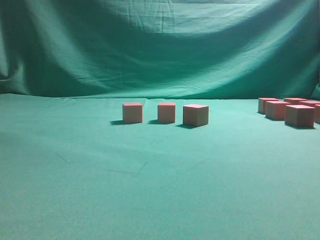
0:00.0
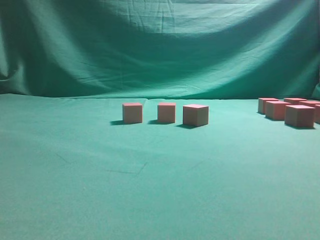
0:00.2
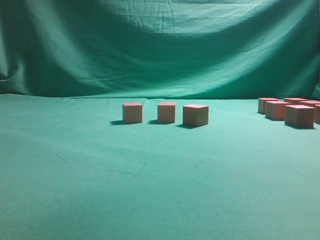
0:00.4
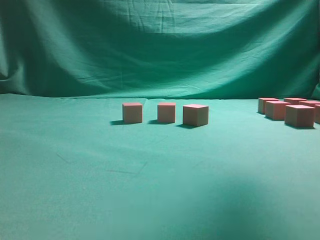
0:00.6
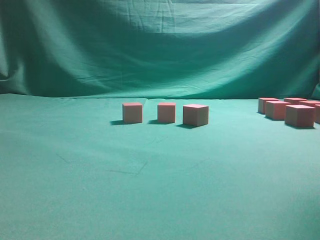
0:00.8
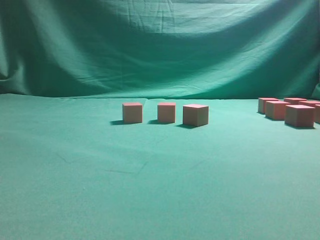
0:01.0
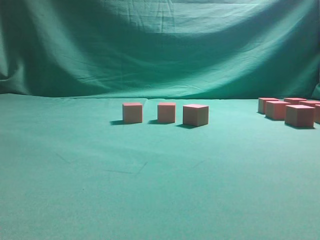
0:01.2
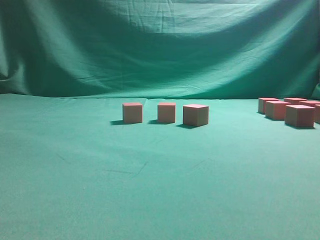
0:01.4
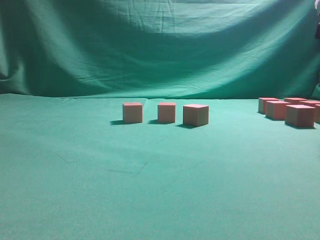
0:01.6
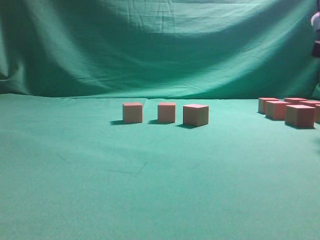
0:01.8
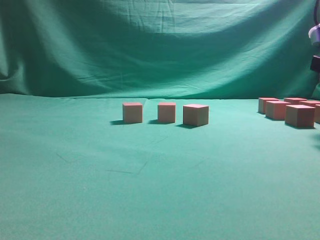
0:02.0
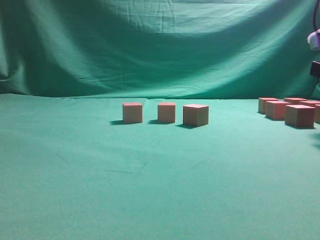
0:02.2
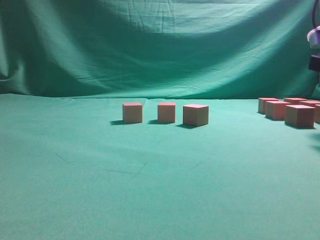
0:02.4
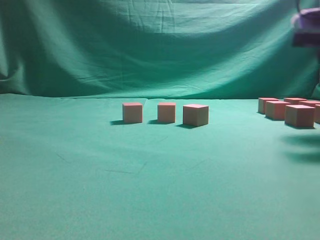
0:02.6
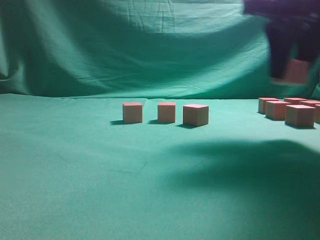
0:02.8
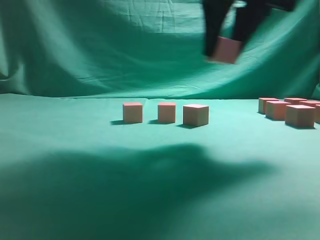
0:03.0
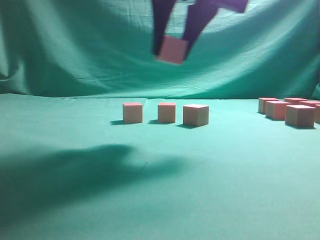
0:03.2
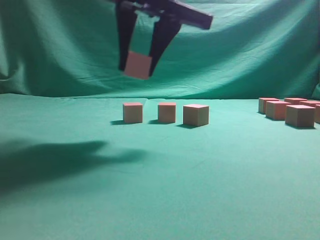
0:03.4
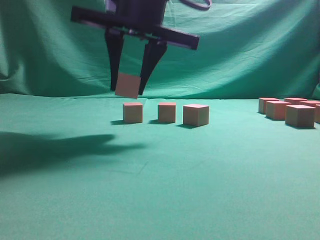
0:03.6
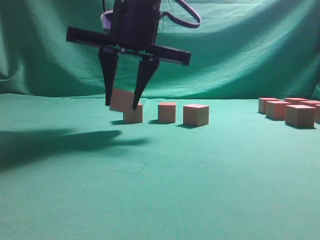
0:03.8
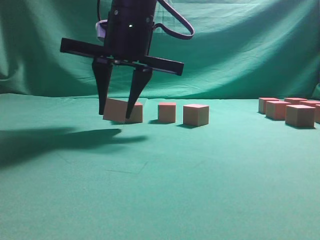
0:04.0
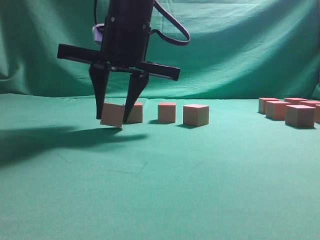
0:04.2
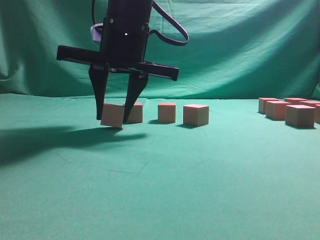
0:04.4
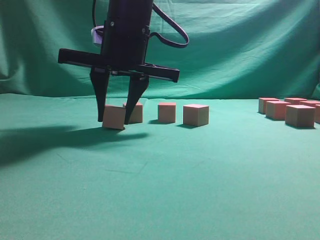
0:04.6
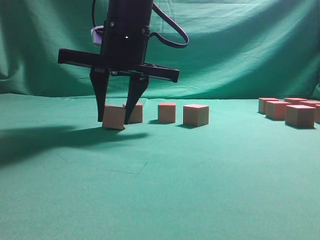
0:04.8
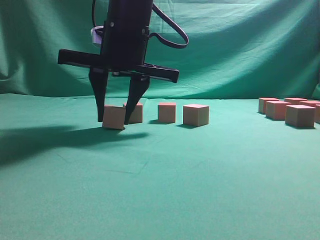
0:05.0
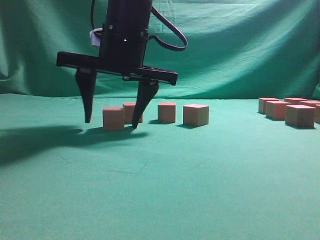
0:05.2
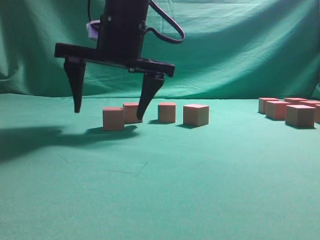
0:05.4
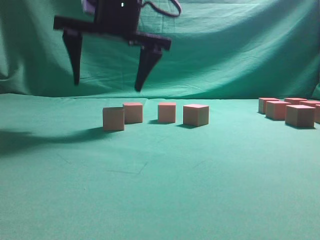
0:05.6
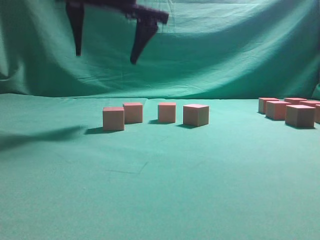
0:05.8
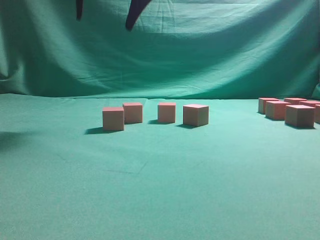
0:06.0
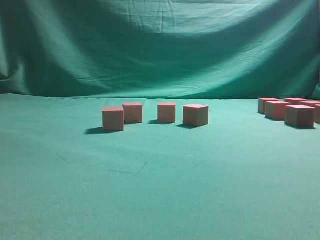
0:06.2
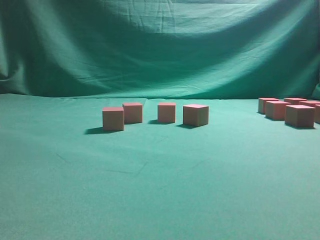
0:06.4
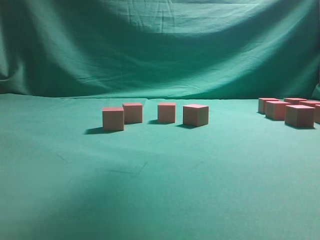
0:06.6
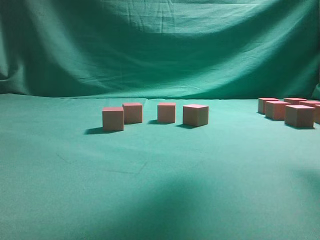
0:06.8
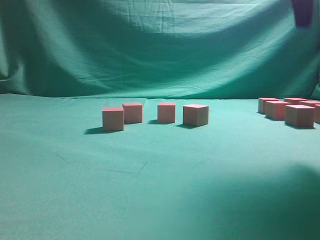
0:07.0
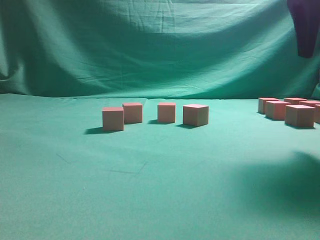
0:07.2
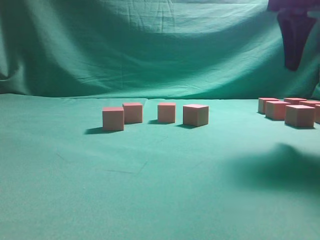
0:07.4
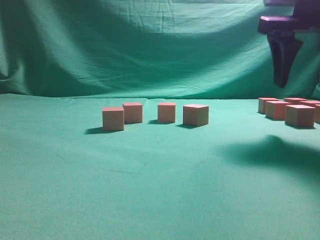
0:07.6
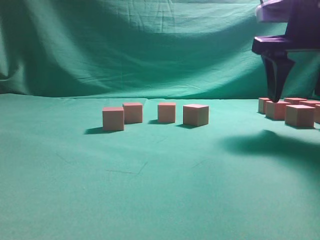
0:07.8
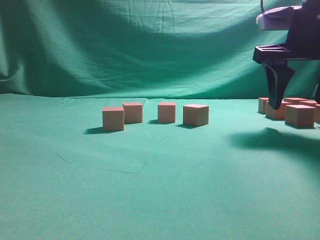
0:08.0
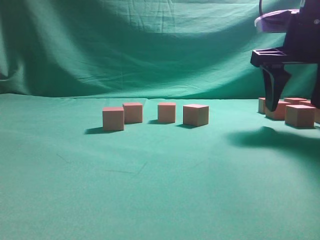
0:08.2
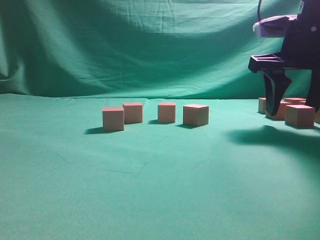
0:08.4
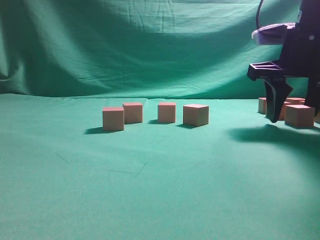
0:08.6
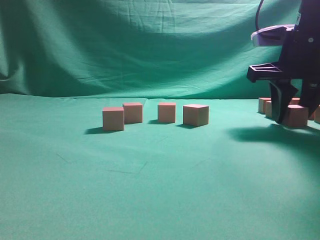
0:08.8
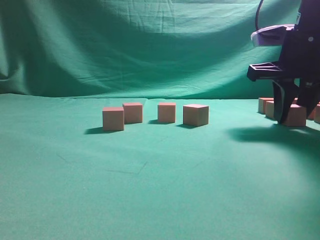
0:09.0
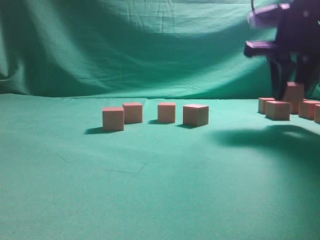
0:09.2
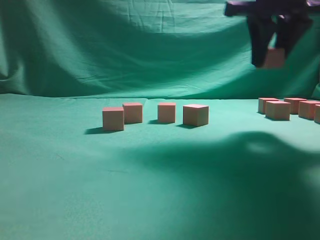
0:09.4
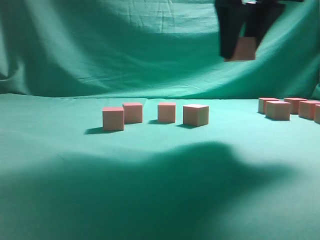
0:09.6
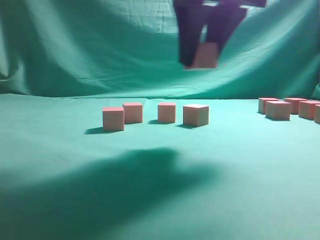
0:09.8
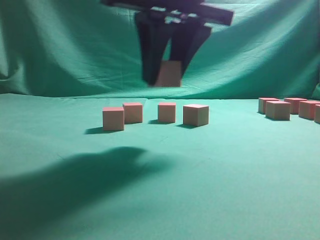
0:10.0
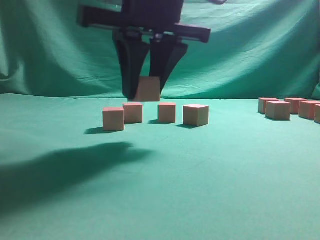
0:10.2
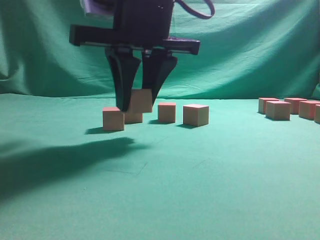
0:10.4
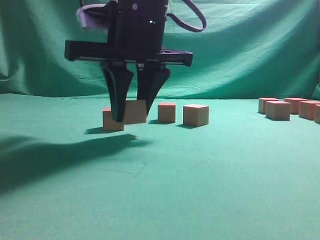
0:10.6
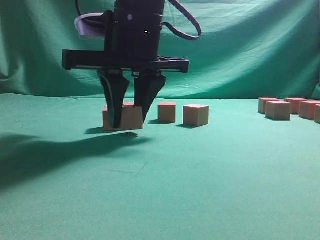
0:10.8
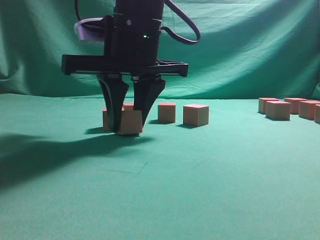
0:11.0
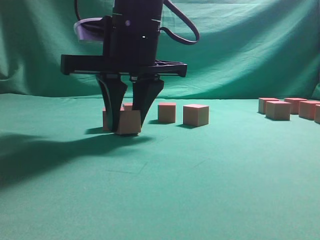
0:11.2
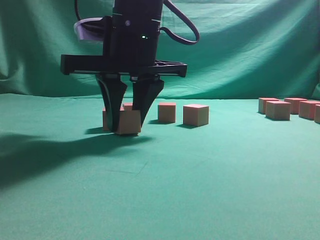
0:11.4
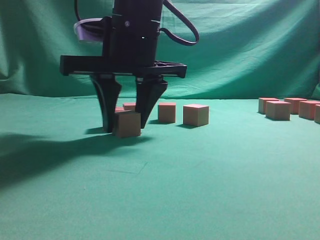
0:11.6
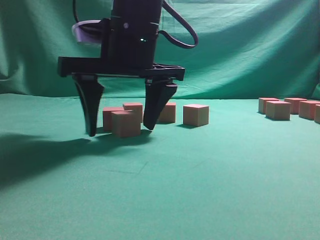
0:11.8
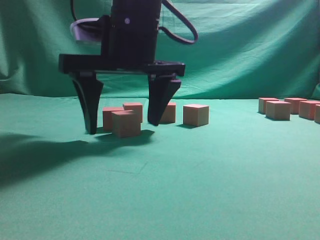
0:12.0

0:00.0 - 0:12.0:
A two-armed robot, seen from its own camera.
Task of the whole recording: pick up the multiple cubes in two columns one by one and place them in another position on the table.
Step, 0:00.0 - 0:02.6: Pick up the block on the table.
Step, 0:02.8 - 0:05.8: Place the block at the correct position to assemble the letter S.
Step, 0:06.0 - 0:09.0: Pick up the block on the table.
0:01.6 - 0:03.0: The right gripper moves to the left, approximately 15 cm.
0:03.0 - 0:04.4: The right gripper travels to the left and downward by approximately 20 cm.
0:04.4 - 0:06.0: The right gripper travels upward by about 15 cm, and opens.
0:06.0 - 0:07.6: The right gripper goes roughly 25 cm to the right.
0:07.6 - 0:09.0: The right gripper travels downward by some 5 cm, and closes.
0:09.0 - 0:10.4: The right gripper heads to the left, covering about 20 cm.
0:10.4 - 0:12.0: The right gripper opens its fingers.

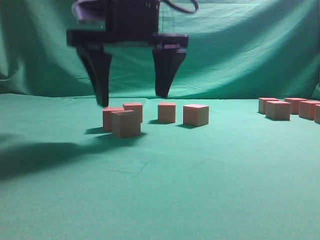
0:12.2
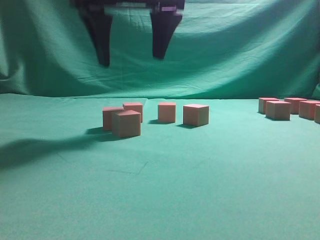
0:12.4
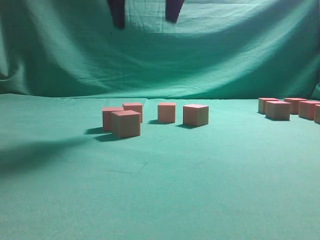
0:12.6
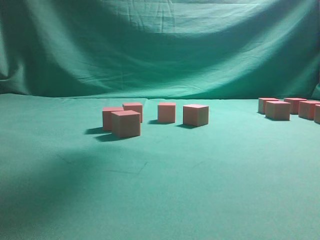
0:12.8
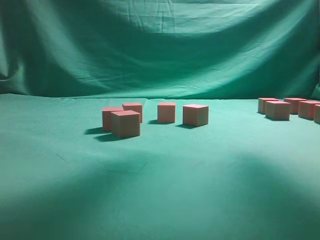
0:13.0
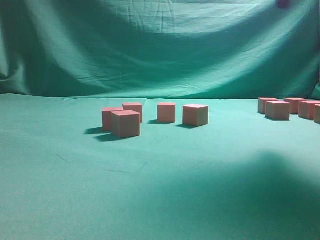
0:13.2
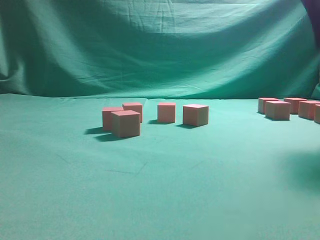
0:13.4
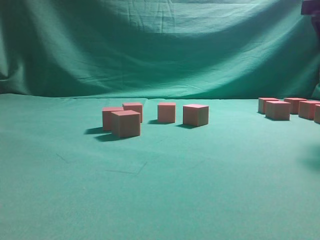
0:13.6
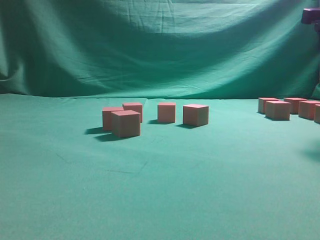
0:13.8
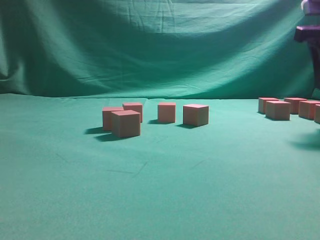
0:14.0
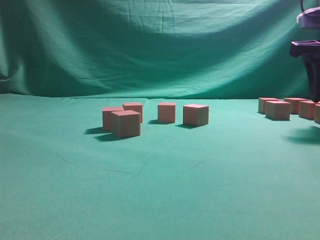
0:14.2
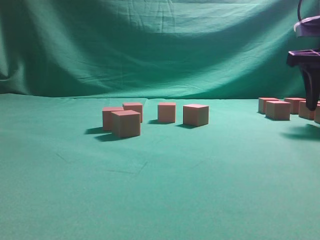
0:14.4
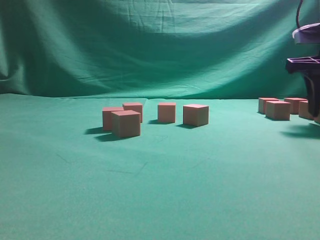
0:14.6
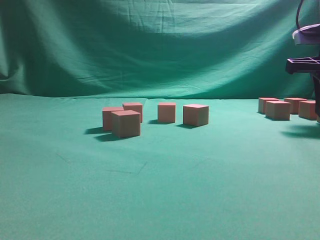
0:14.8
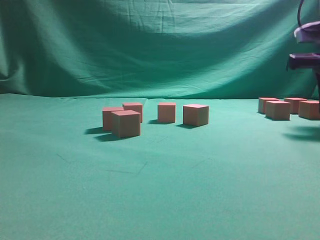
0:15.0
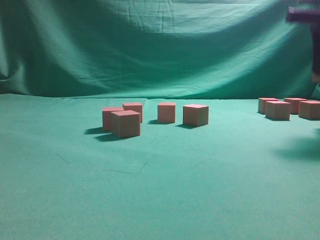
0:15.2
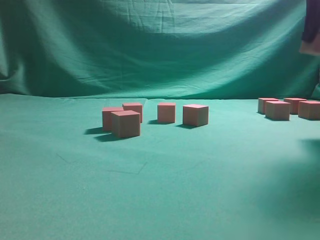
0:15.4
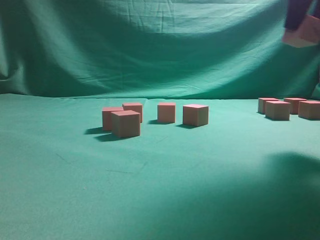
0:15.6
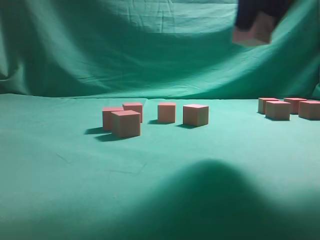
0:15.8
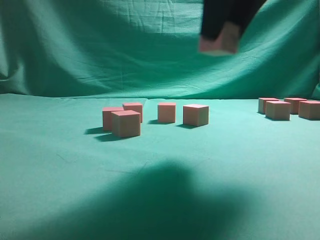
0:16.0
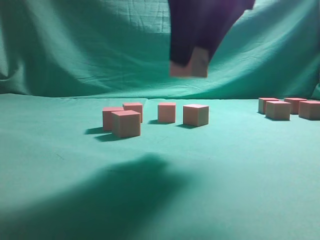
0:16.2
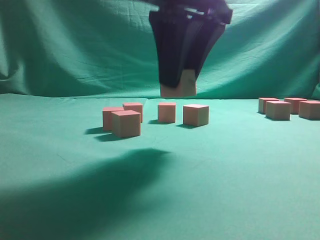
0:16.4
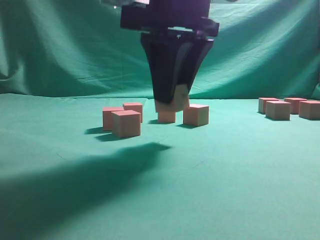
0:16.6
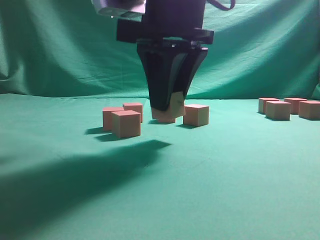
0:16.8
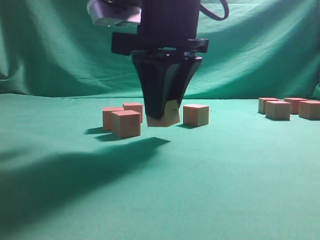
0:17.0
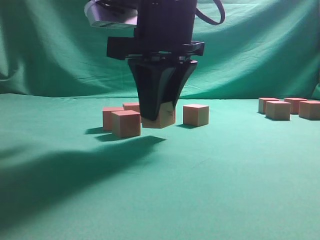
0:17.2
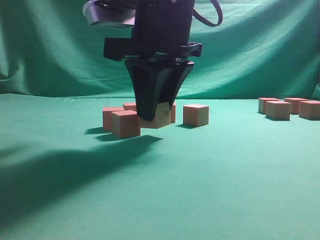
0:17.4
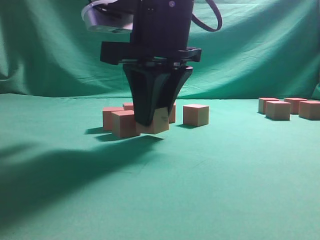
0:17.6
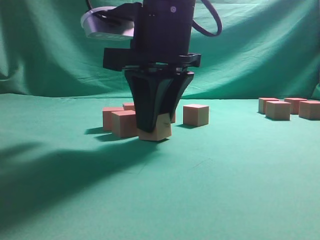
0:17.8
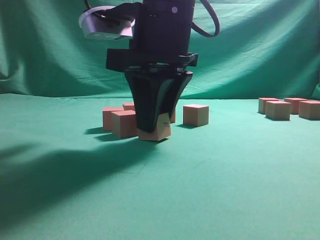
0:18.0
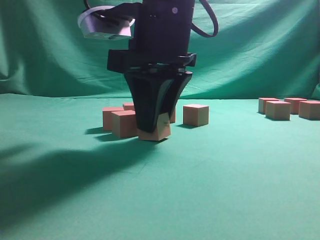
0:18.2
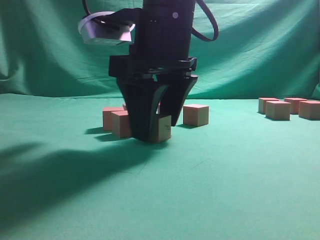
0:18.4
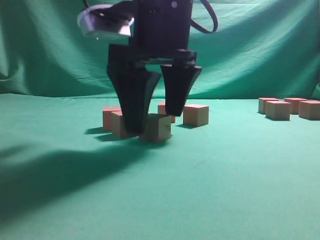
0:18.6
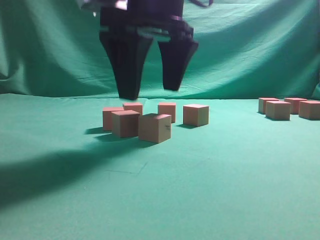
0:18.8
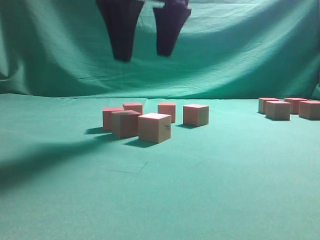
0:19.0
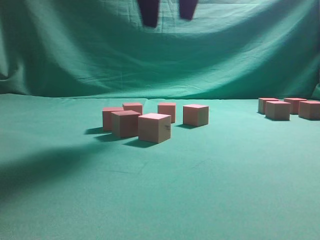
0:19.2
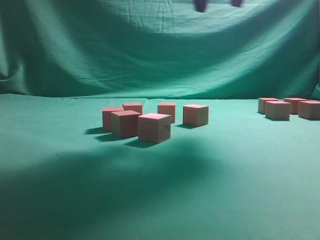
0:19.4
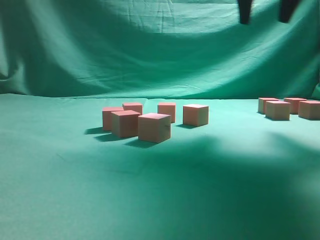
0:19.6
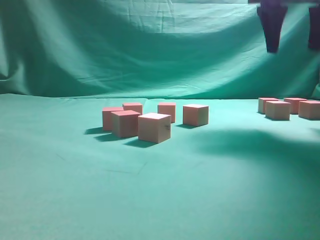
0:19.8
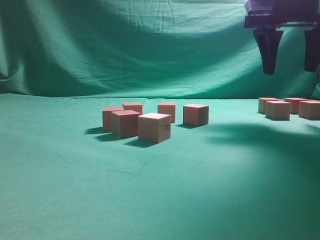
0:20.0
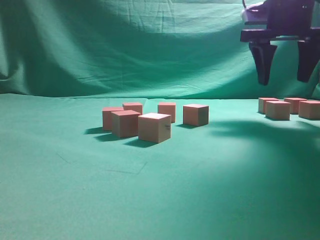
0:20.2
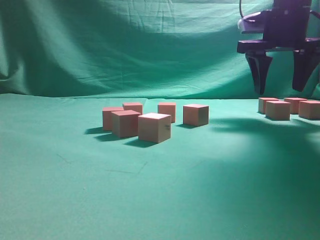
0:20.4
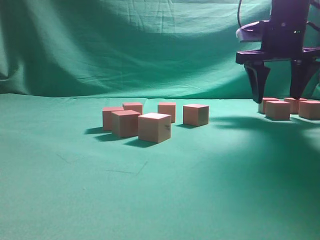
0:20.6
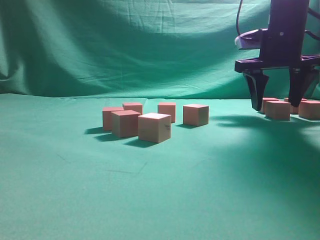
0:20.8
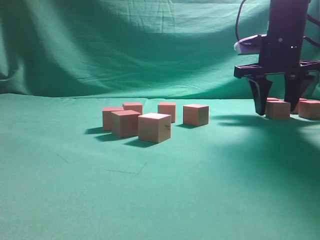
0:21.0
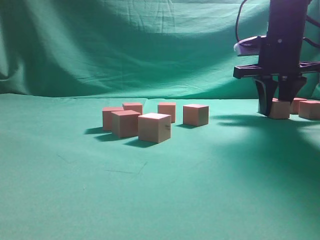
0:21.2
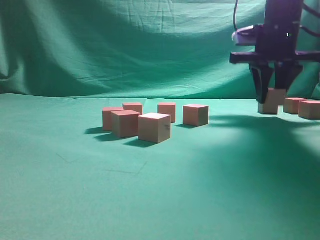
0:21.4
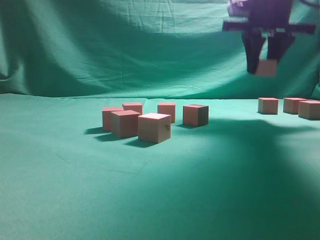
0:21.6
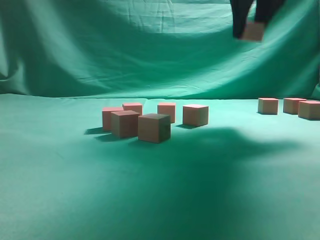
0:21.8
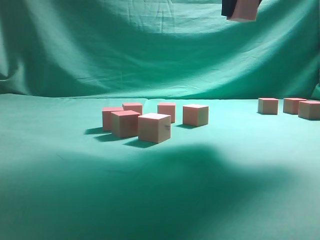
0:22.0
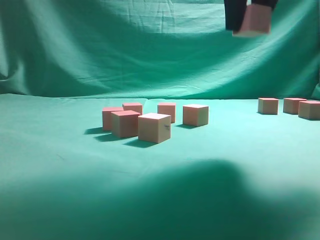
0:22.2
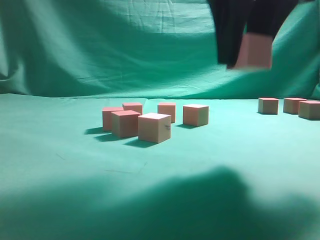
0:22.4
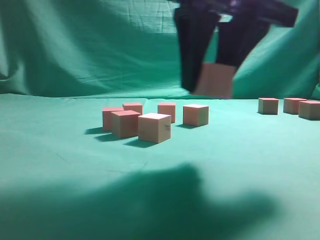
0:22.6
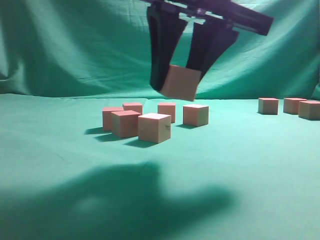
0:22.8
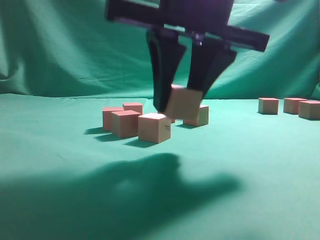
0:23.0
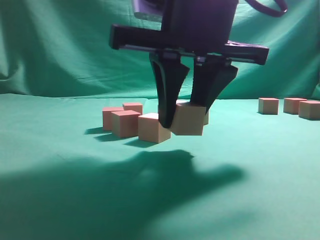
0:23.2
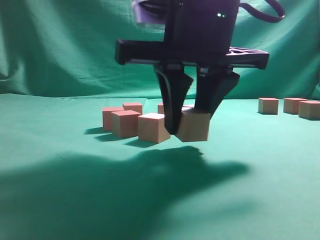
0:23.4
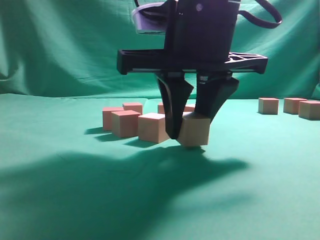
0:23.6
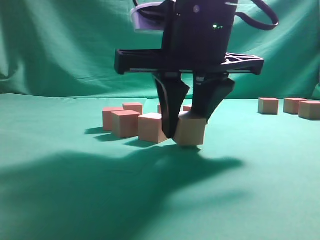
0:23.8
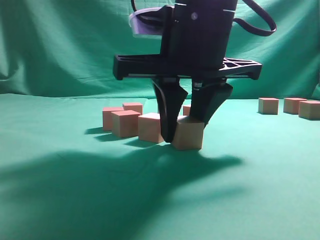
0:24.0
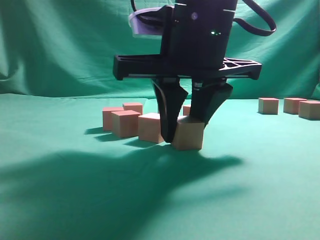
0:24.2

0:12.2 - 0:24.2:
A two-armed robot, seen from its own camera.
Task of the whole recording: pick up the multiple cubes in two columns one by one and place them in another position on the table.
Step, 0:12.6 - 0:15.0: Pick up the block on the table.
Step, 0:15.2 - 0:19.0: Place the block at the correct position to assemble the letter S.
Step, 0:19.2 - 0:21.4: Pick up the block on the table.
0:12.2 - 0:13.8: The right gripper is displaced to the right by approximately 30 cm.
0:13.8 - 0:15.2: The right gripper closes.
0:15.2 - 0:16.6: The right gripper moves to the left and backward, about 25 cm.
0:18.2 - 0:19.8: The right gripper goes some 25 cm to the right, forward and upward, and opens its fingers.
0:19.8 - 0:21.2: The right gripper moves downward, some 10 cm, and closes up.
0:21.2 - 0:22.6: The right gripper travels backward and to the left by approximately 25 cm.
0:22.6 - 0:24.2: The right gripper goes roughly 5 cm downward.
